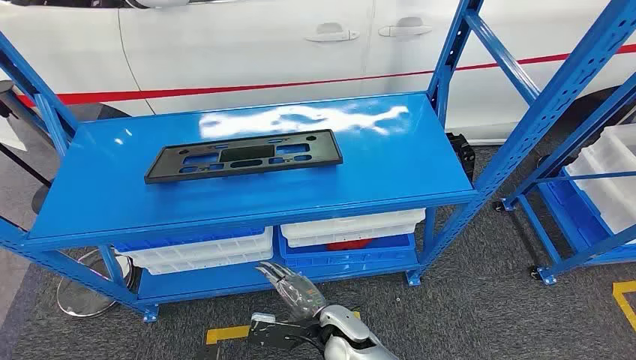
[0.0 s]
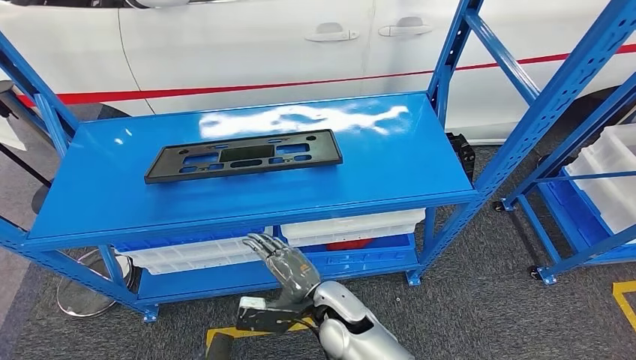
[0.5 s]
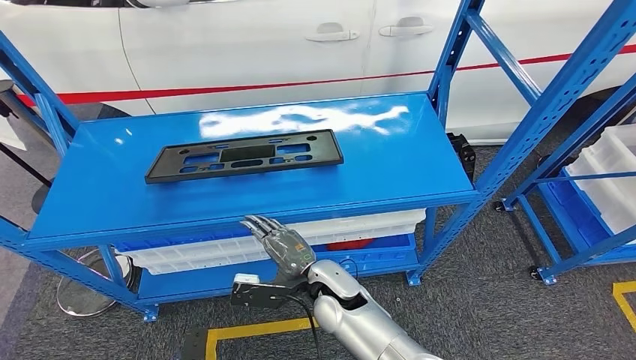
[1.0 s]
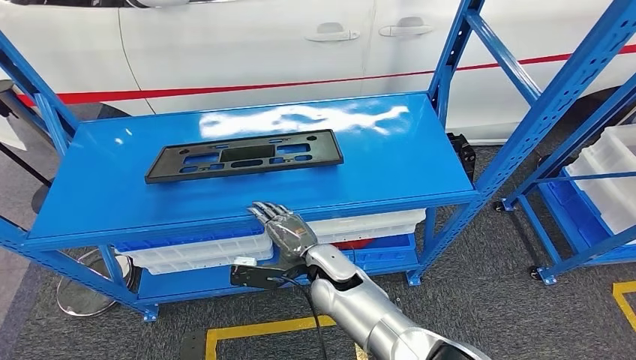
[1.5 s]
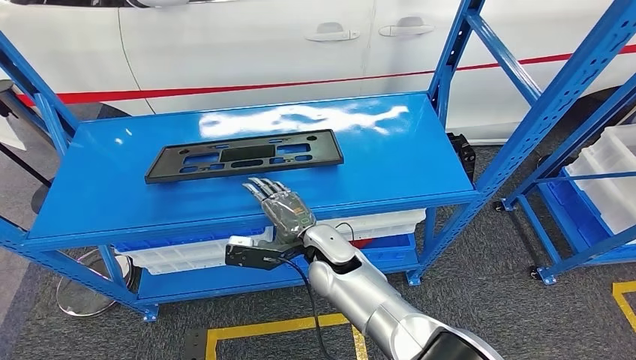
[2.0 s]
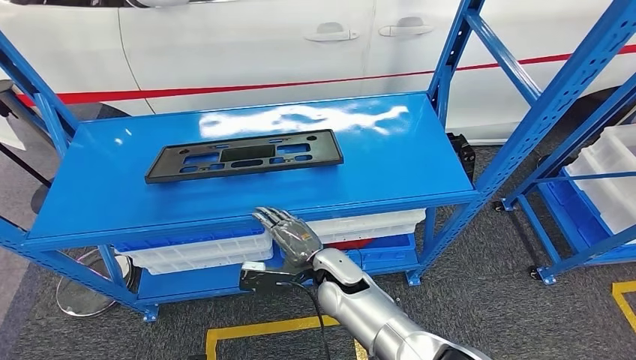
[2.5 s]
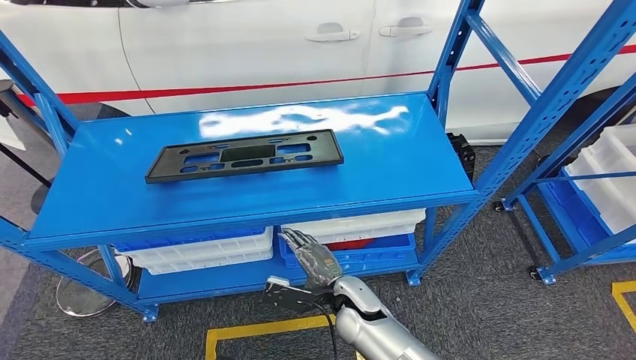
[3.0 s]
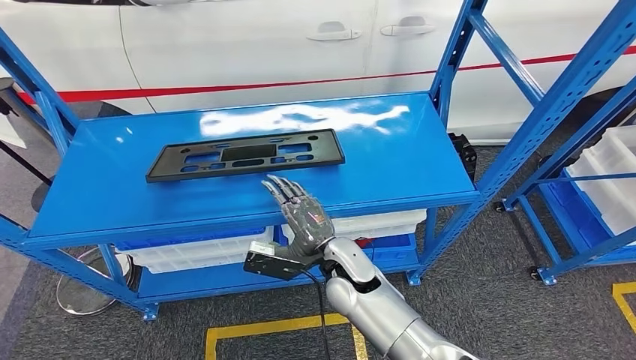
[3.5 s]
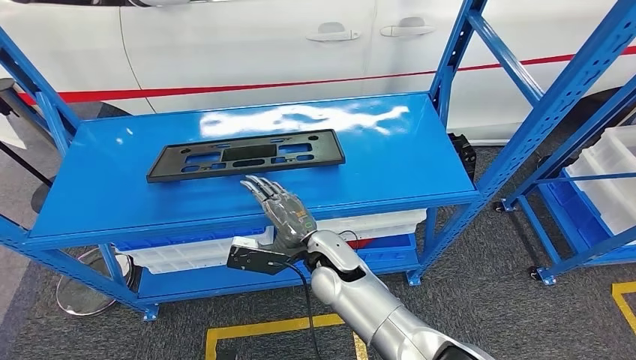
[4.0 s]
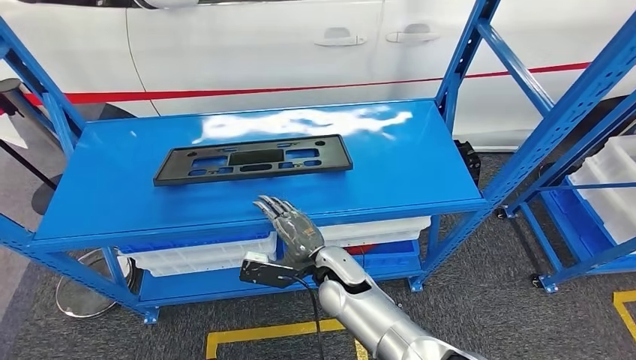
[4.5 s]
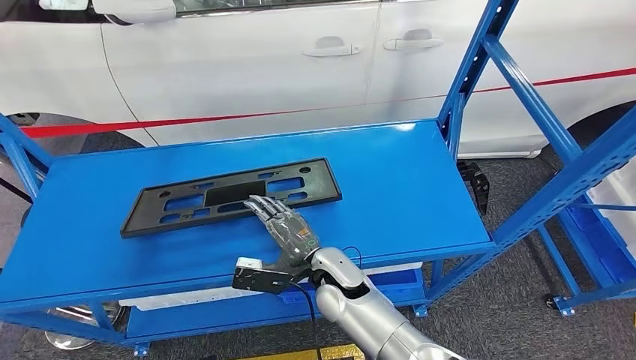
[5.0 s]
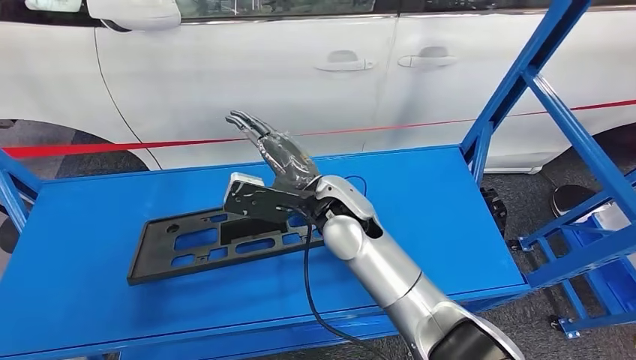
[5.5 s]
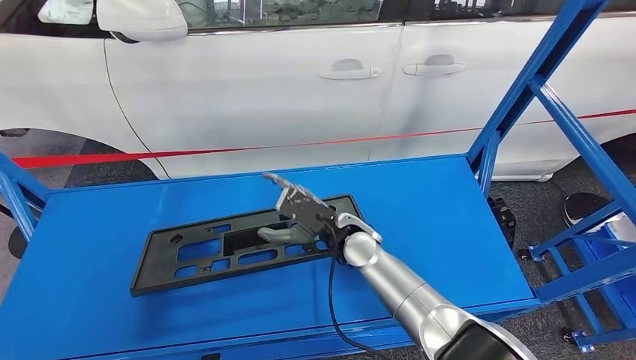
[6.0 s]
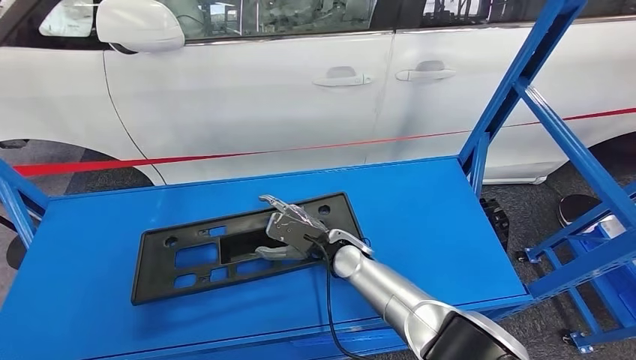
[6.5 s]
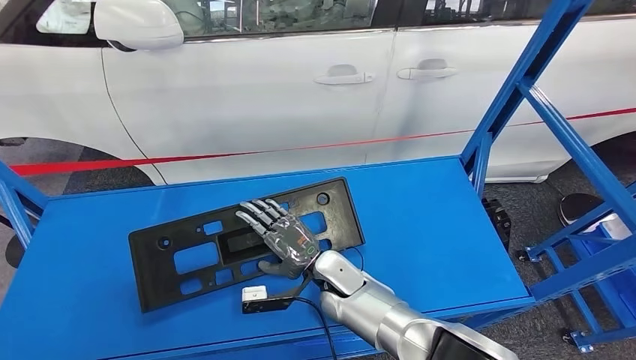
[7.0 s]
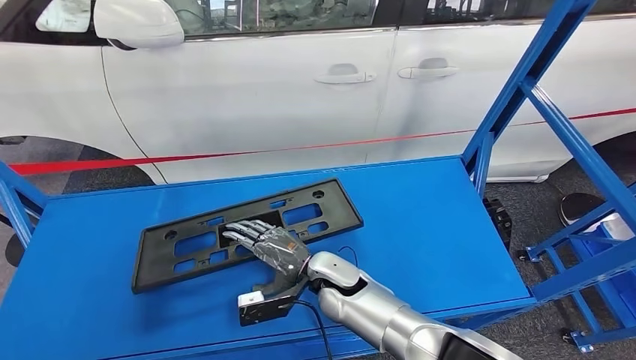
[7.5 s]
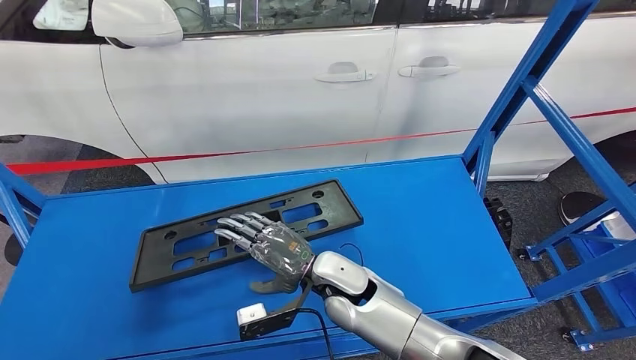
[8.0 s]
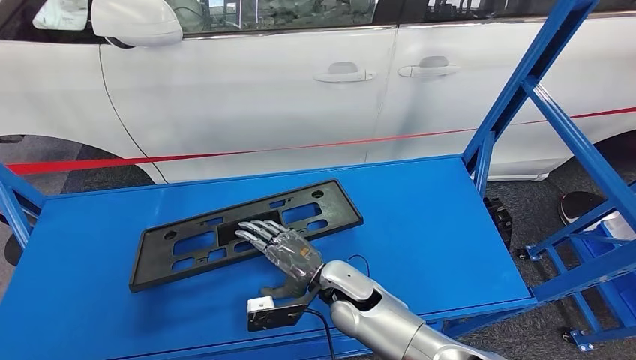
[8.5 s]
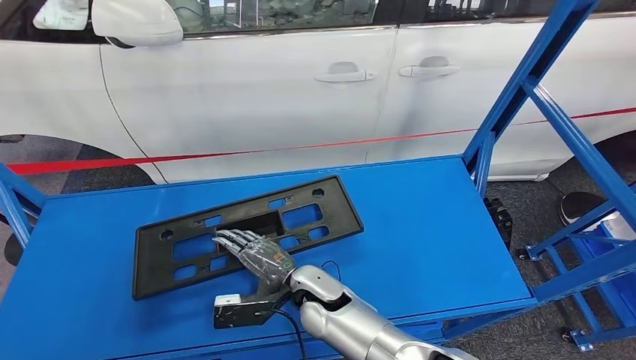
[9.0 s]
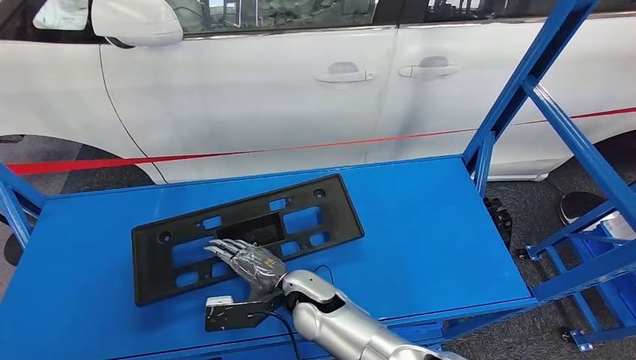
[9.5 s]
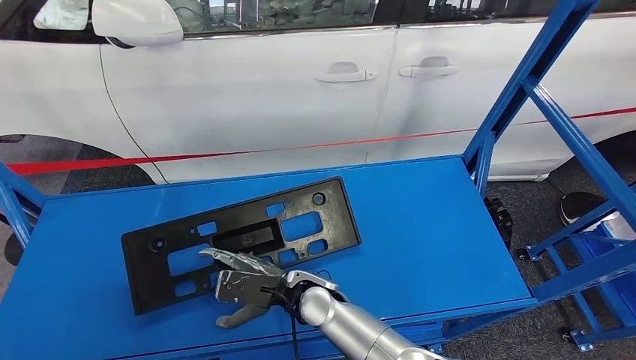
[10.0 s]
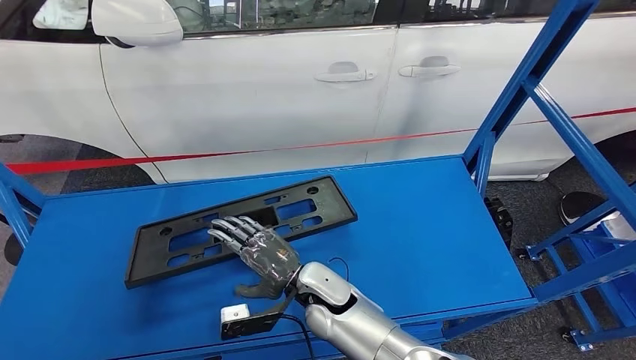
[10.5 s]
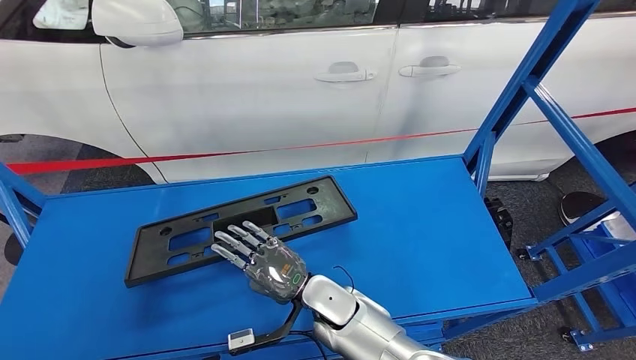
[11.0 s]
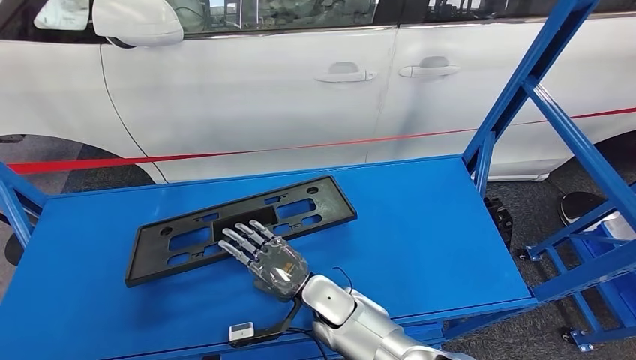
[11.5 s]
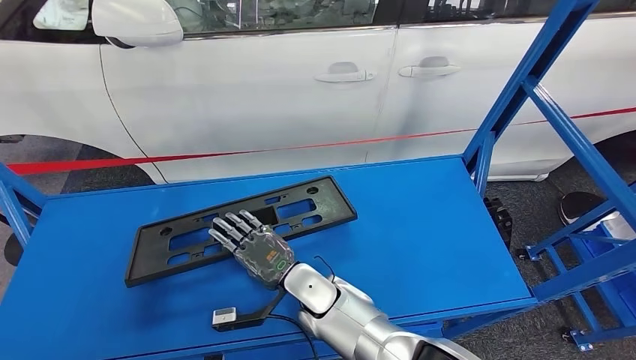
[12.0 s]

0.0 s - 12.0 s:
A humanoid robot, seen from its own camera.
2.0 s - 4.0 s: The right hand travels downward and back again, approximately 10 cm each way.
8.0 s - 10.0 s: The right hand changes place by approximately 5 cm.

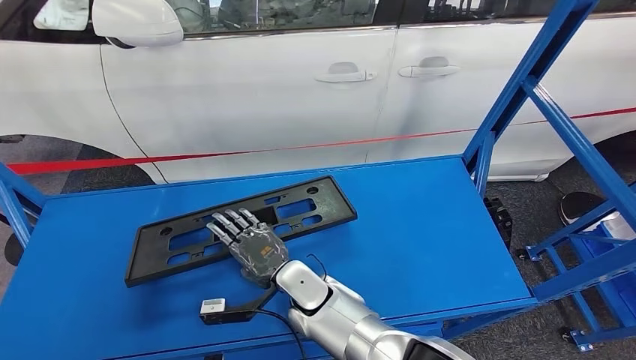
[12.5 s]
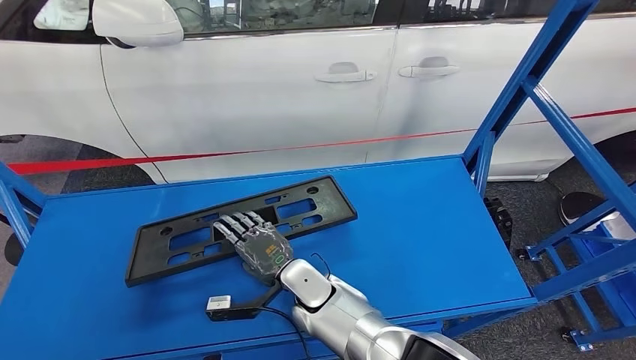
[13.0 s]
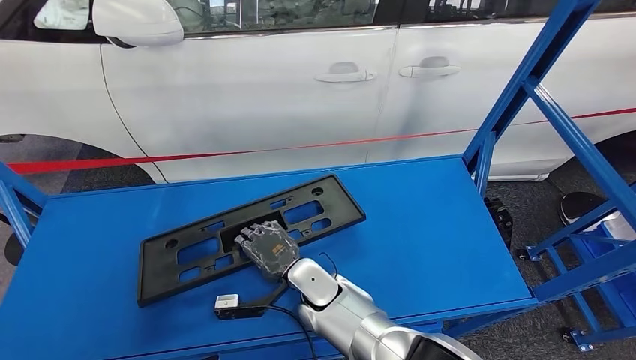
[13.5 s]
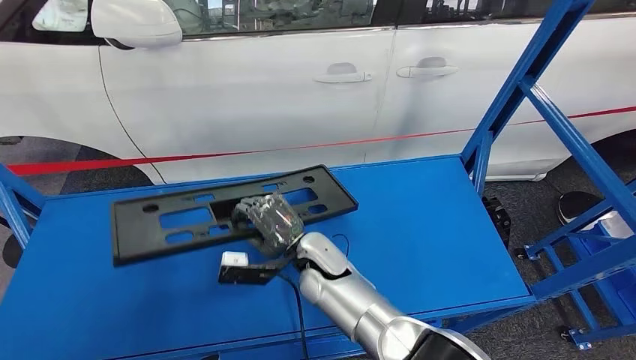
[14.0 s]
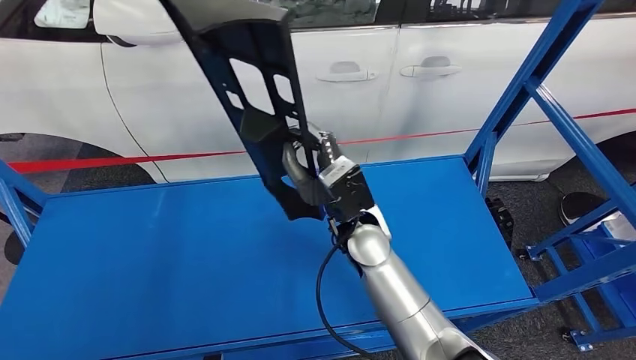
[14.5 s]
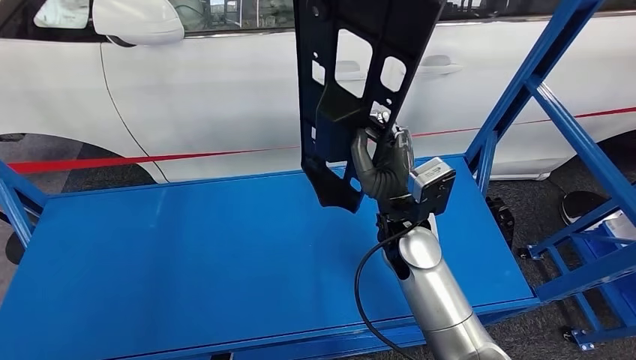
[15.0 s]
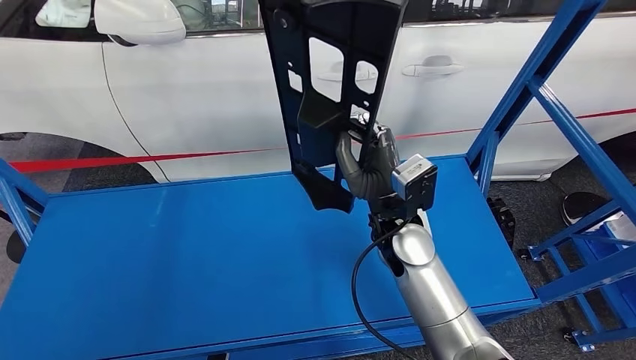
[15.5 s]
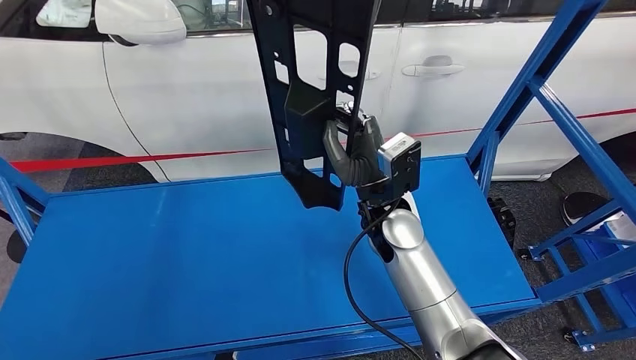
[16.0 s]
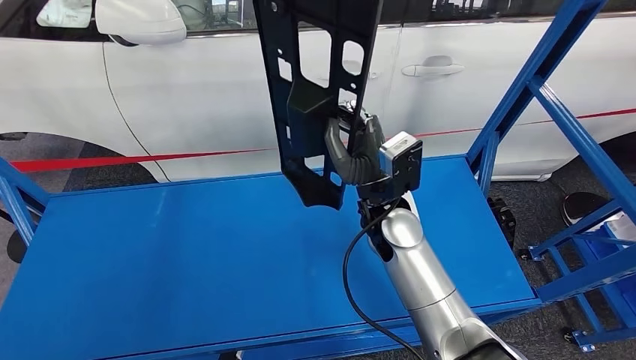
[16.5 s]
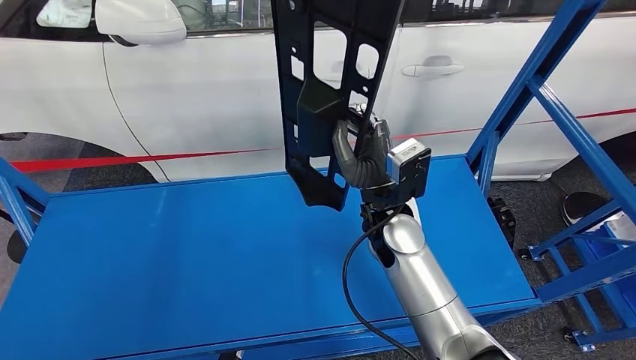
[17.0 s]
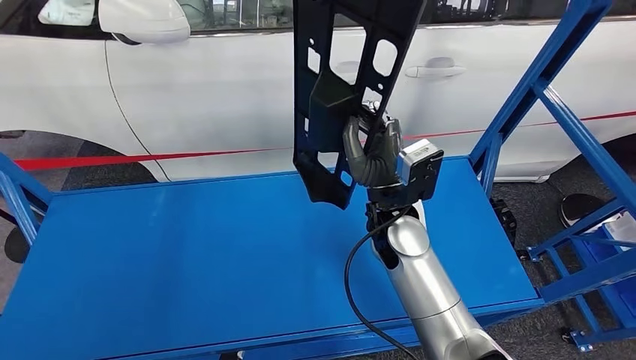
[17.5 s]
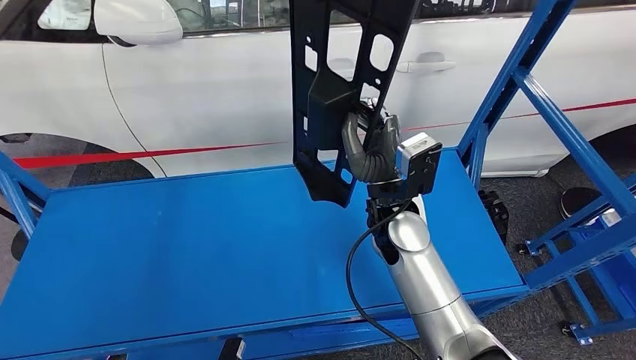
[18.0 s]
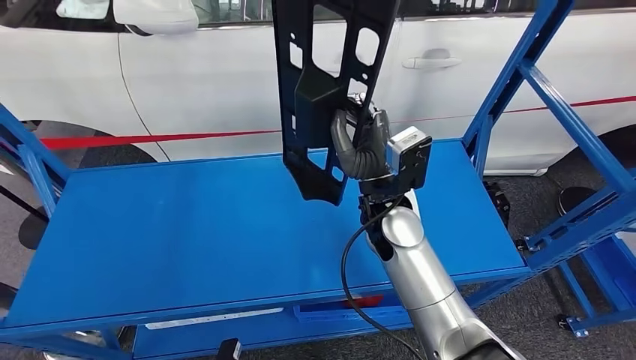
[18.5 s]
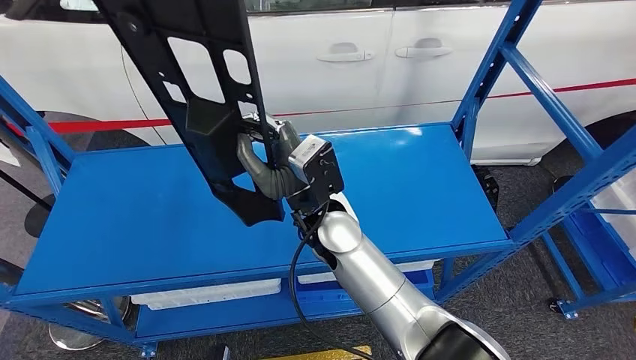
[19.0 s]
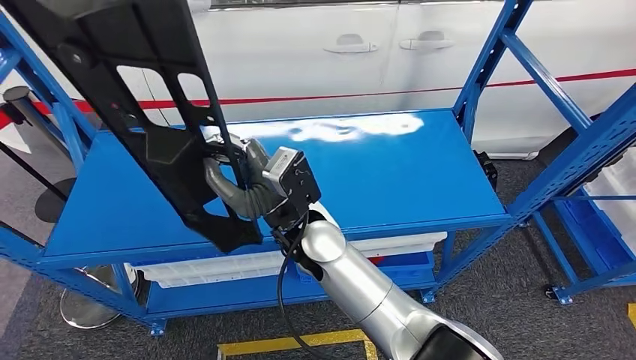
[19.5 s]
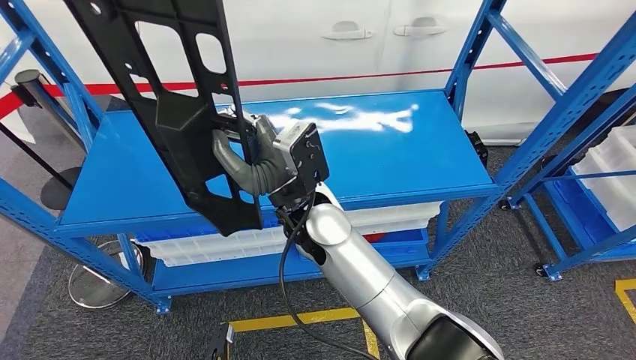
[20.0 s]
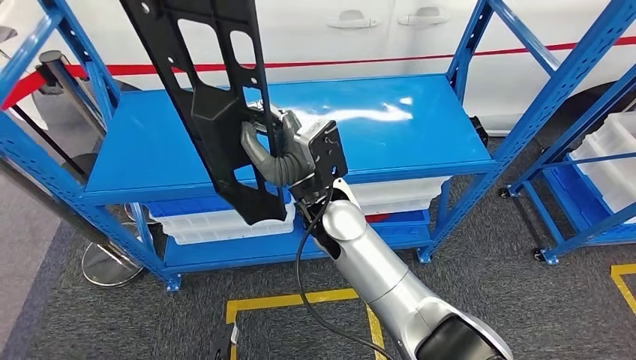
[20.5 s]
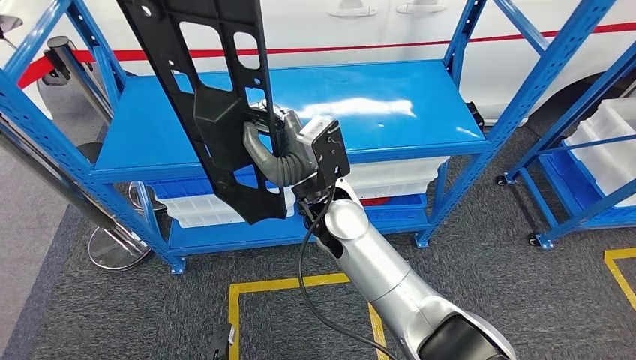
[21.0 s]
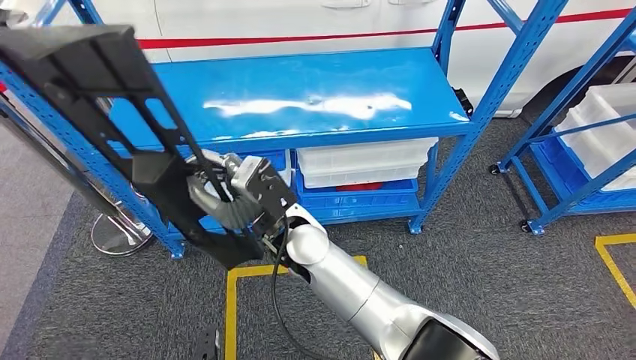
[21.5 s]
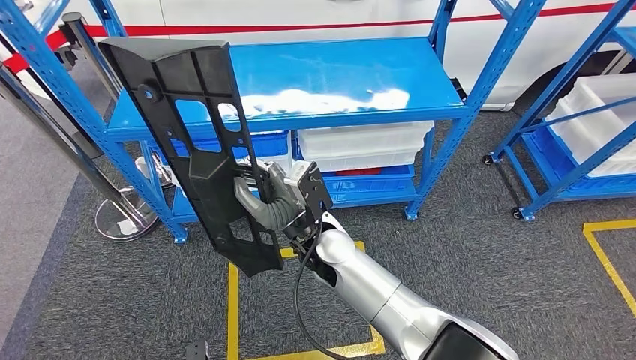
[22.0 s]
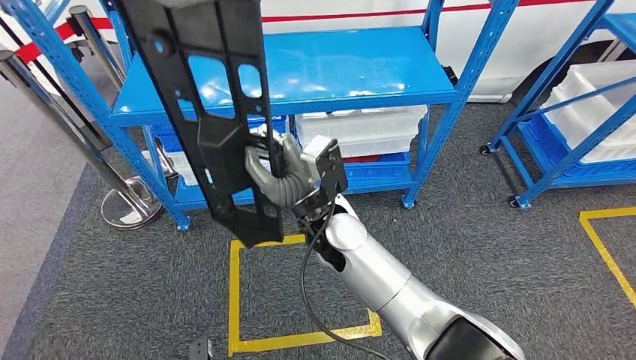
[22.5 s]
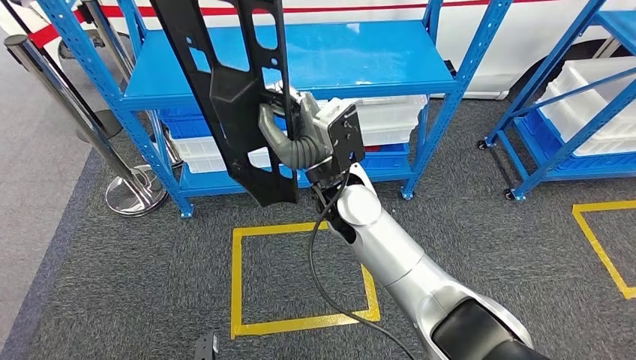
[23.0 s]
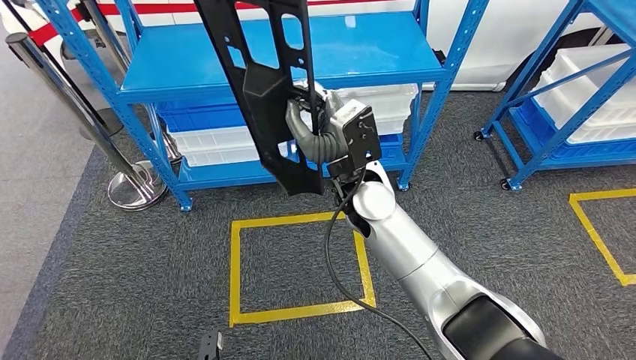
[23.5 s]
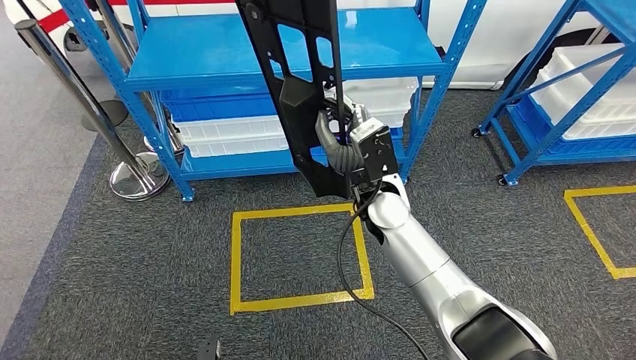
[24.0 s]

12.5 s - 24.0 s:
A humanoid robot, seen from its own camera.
Step, 12.5 s - 16.0 s: Pick up the large material from the shelf.
